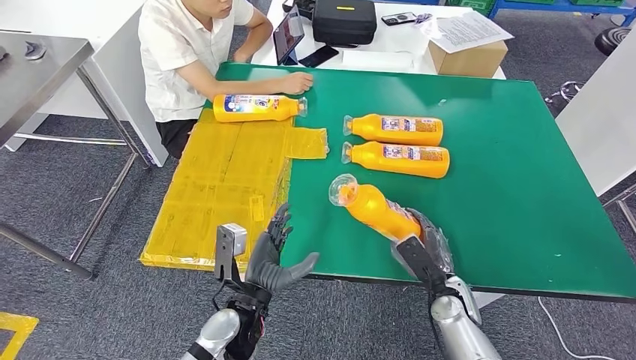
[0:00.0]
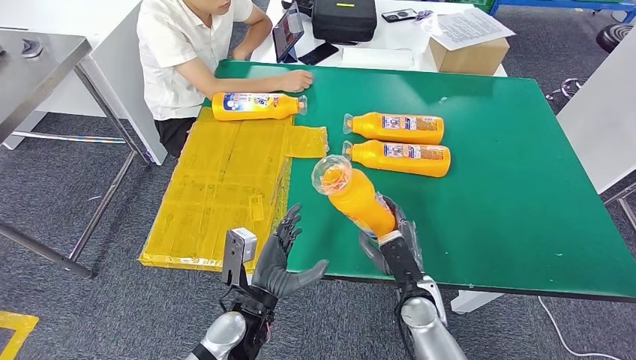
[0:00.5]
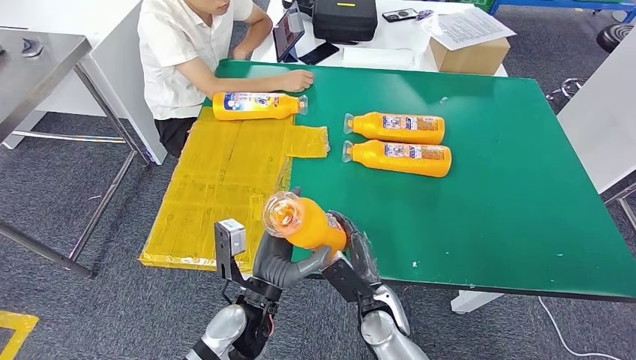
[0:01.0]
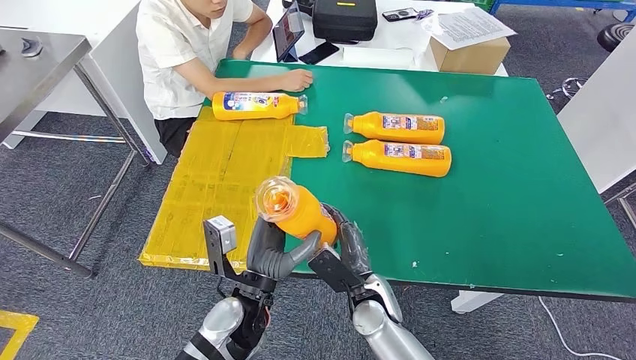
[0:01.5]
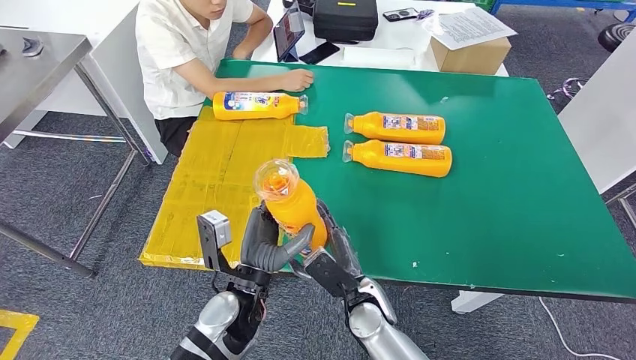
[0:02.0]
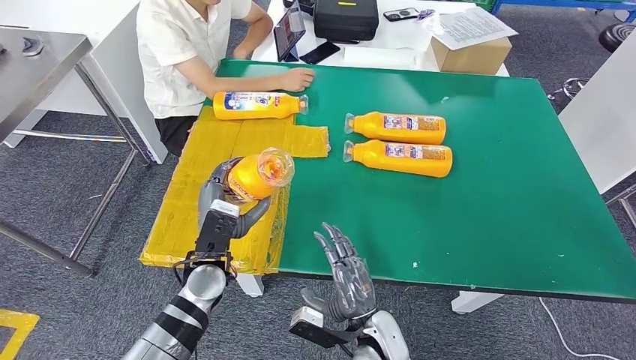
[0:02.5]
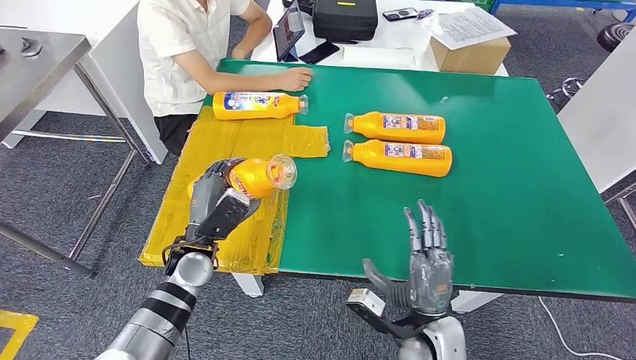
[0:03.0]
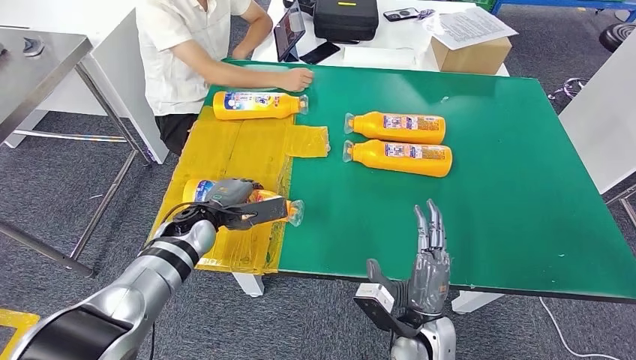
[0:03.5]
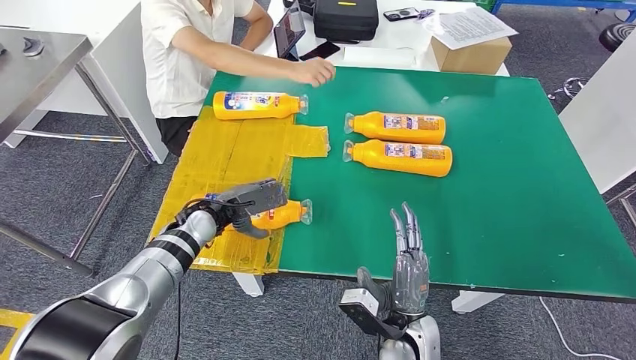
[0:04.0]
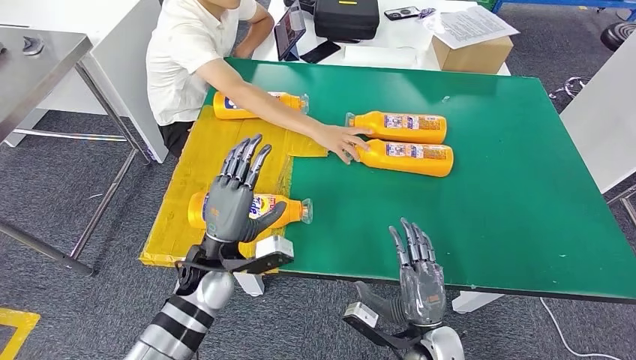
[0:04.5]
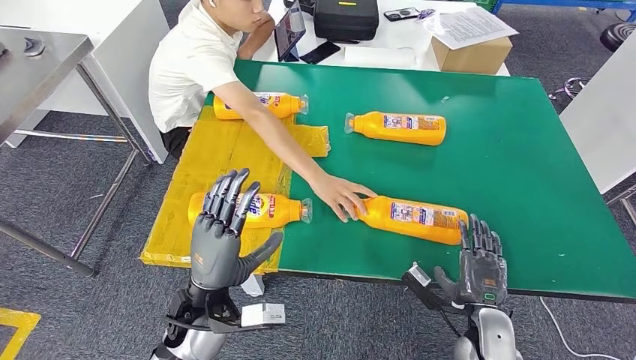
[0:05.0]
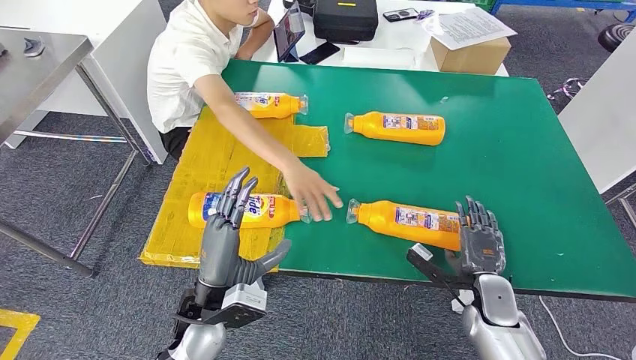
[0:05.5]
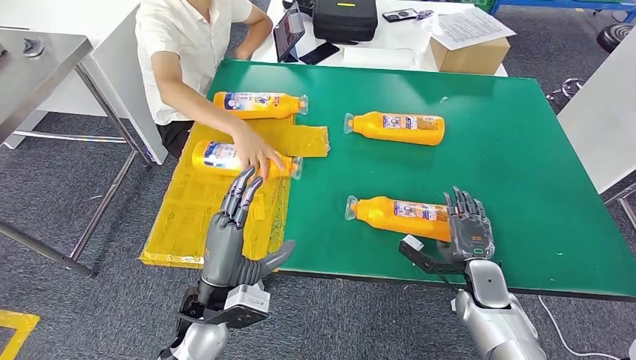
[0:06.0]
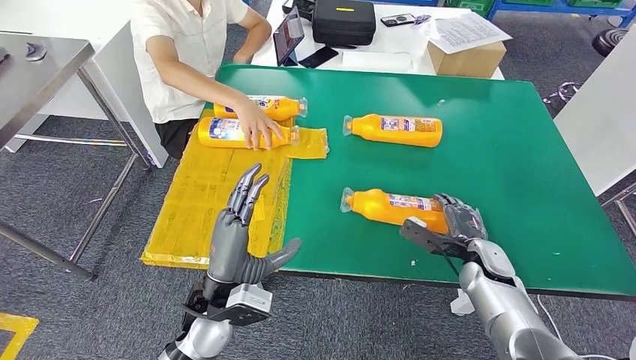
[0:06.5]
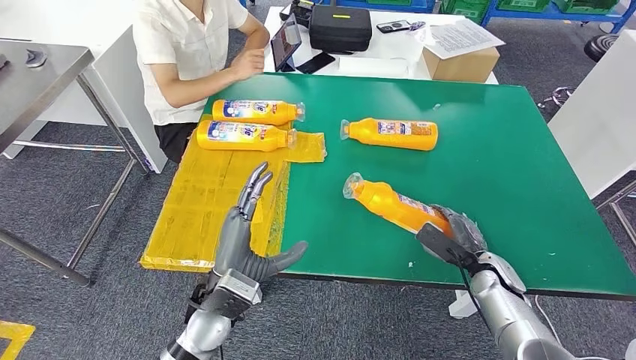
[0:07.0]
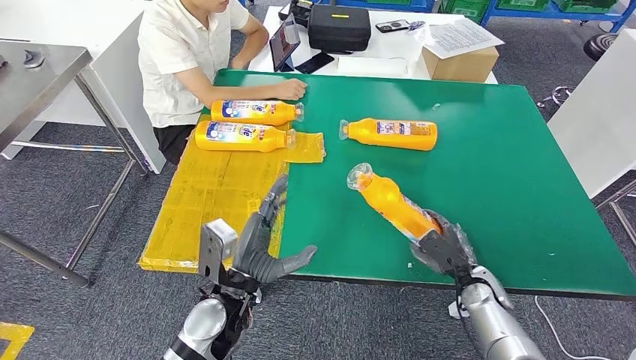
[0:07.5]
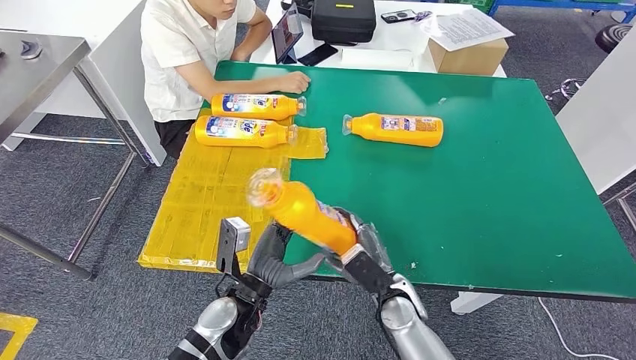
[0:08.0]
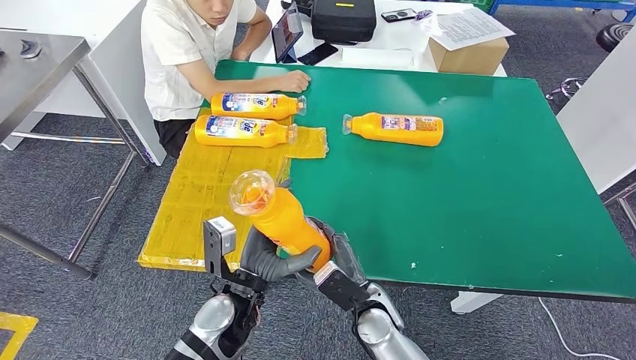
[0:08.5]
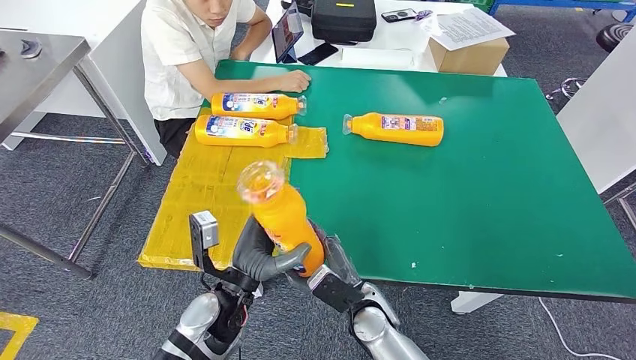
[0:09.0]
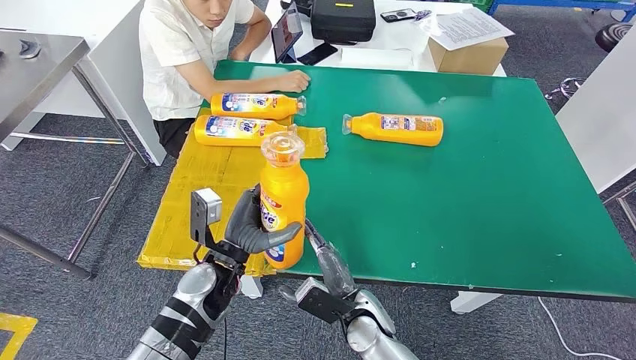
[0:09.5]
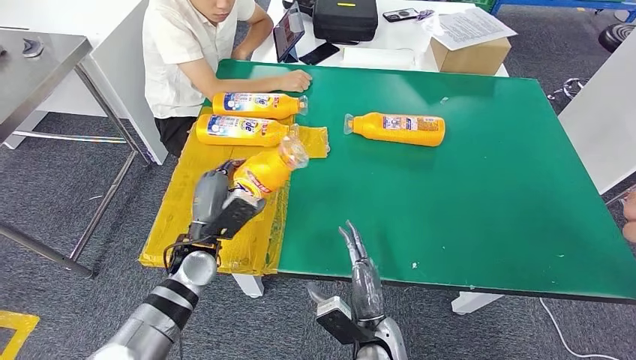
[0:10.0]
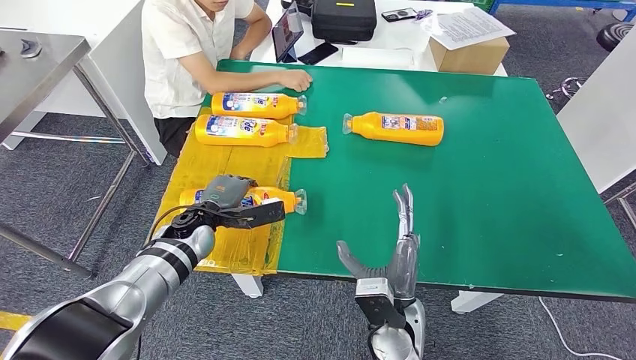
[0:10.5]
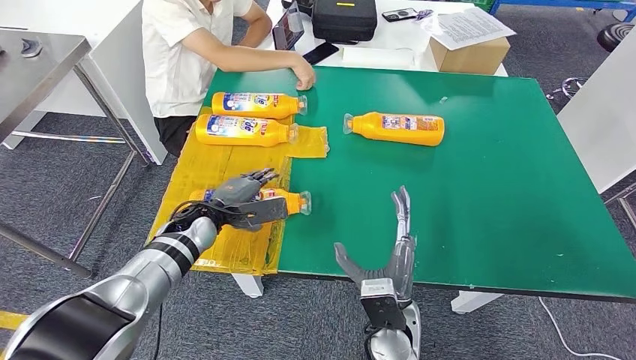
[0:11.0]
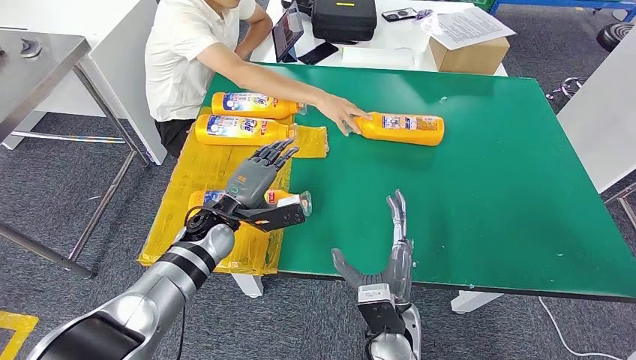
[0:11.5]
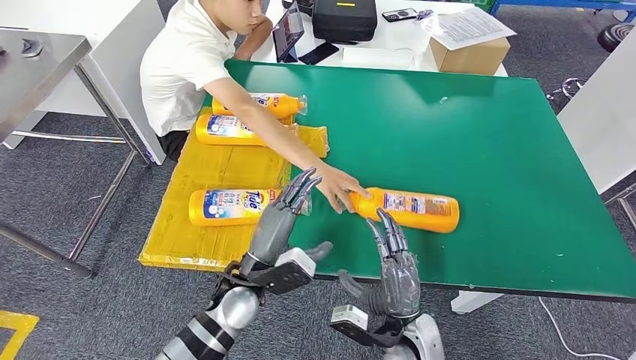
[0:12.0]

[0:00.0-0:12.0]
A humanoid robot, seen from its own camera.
Step, 0:02.0 to 0:03.0: Flip the bottle to face forward.
Step, 0:03.5 to 0:07.5: Pick up the bottle from the table.
Step, 0:08.0 to 0:11.0: Flip the bottle to face forward.
0:02.0 to 0:04.0: The left hand goes roughly 20 cm forward and to the left. The right hand shifts approximately 5 cm to the right.
0:08.0 to 0:10.0: The left hand travels to the left and forward by approximately 15 cm. Meanwhile the right hand goes some 5 cm backward.

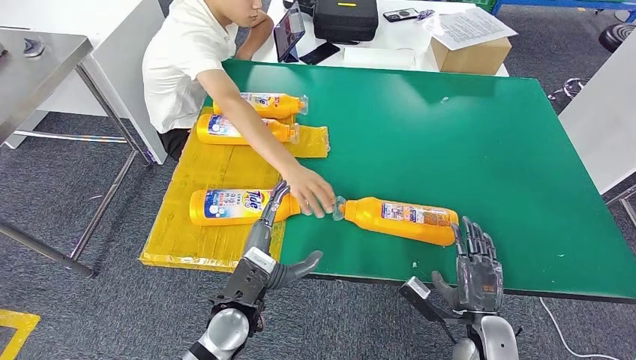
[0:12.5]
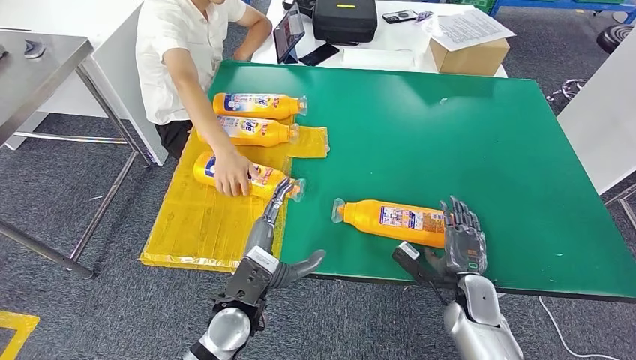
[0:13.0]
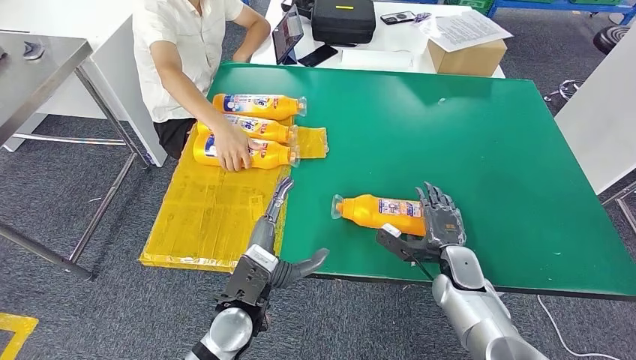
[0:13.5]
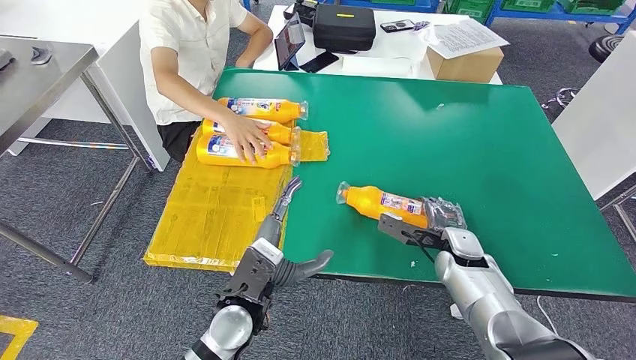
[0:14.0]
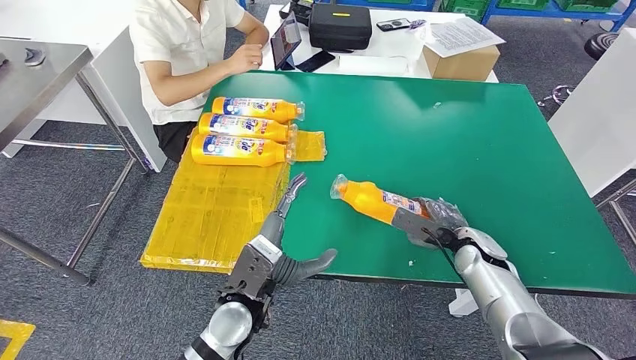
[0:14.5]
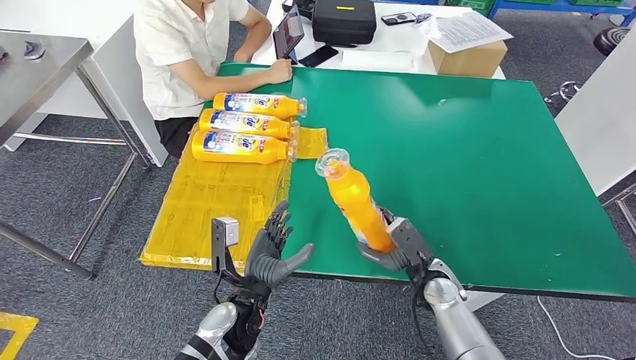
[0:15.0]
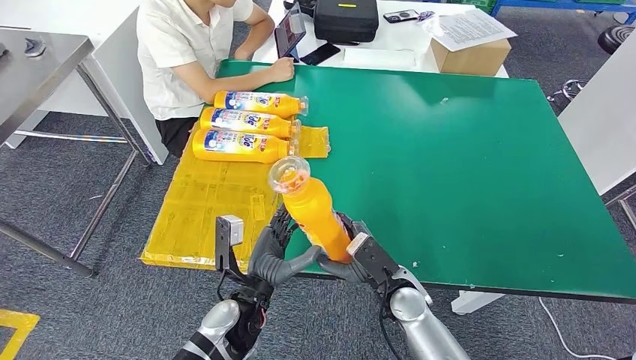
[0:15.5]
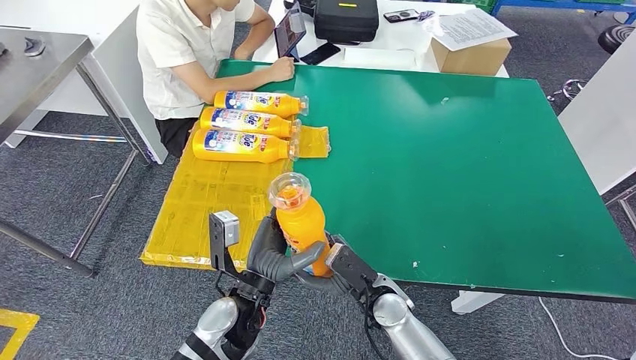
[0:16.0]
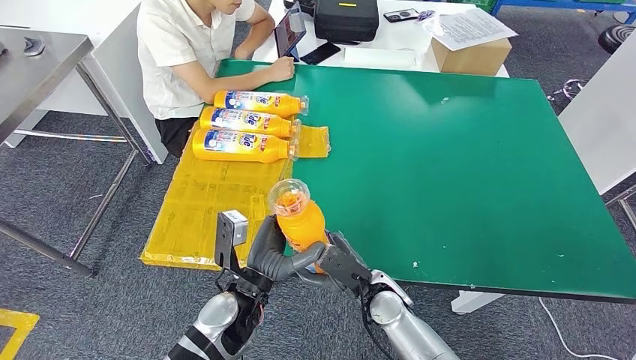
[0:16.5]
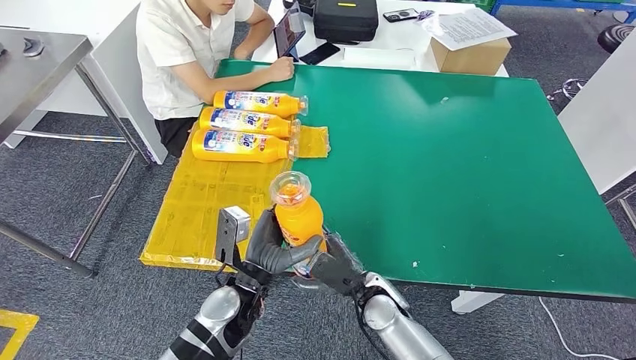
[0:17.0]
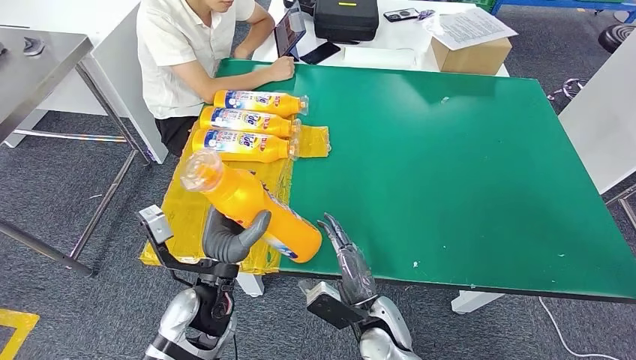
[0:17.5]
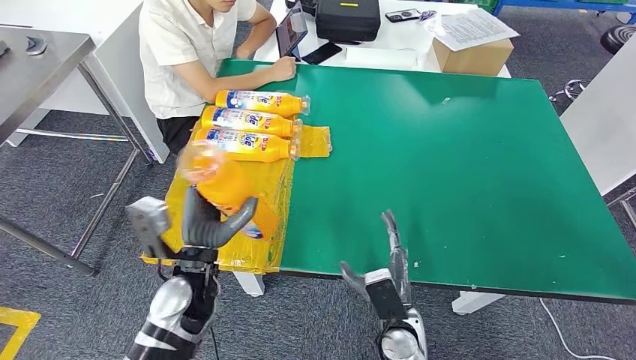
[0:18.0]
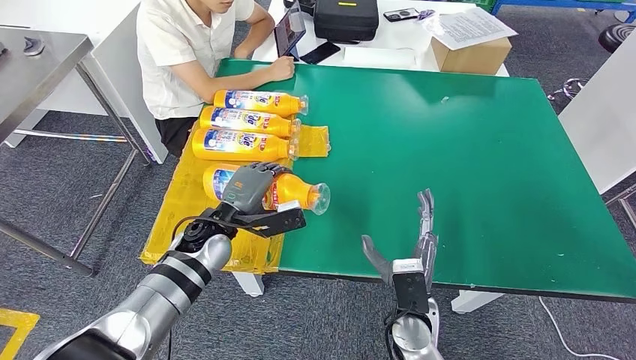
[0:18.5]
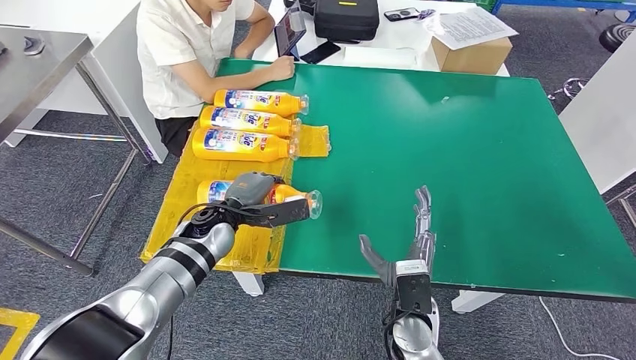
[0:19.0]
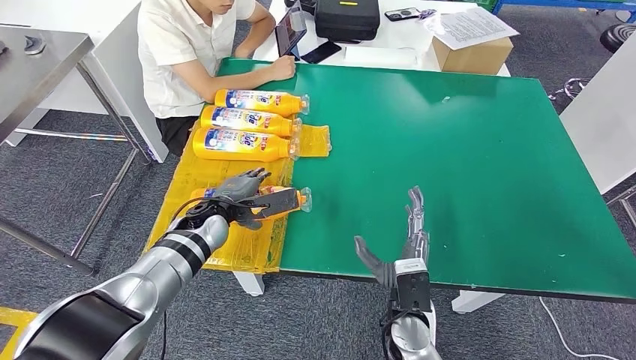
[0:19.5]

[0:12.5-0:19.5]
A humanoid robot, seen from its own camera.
Step, 0:12.5 to 0:15.5: Pick up the bottle from the table.
Step, 0:16.0 to 0:19.5: Flip the bottle to face forward.
0:16.0 to 0:17.5: The left hand changes place by roughly 5 cm.
0:17.5 to 0:19.5: The left hand is displaced forward by some 15 cm, while the right hand changes place by some 5 cm.
